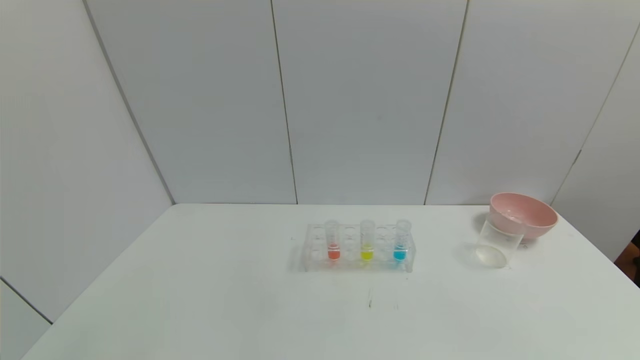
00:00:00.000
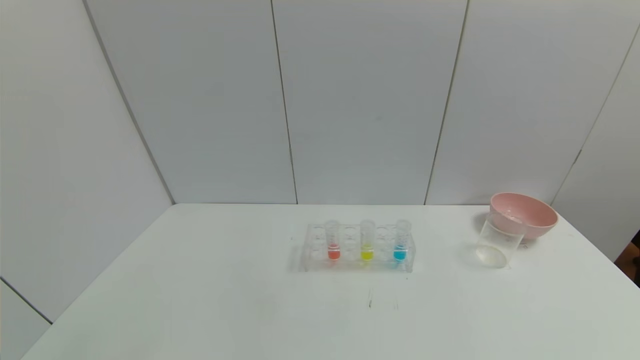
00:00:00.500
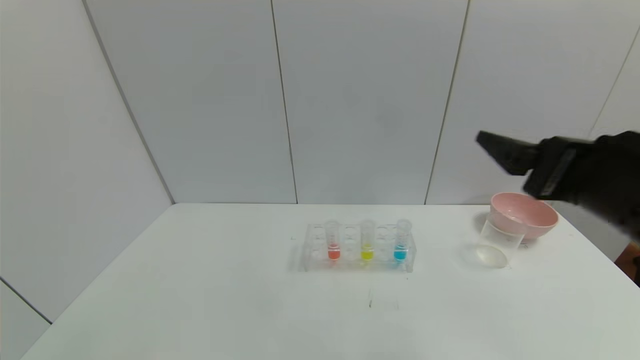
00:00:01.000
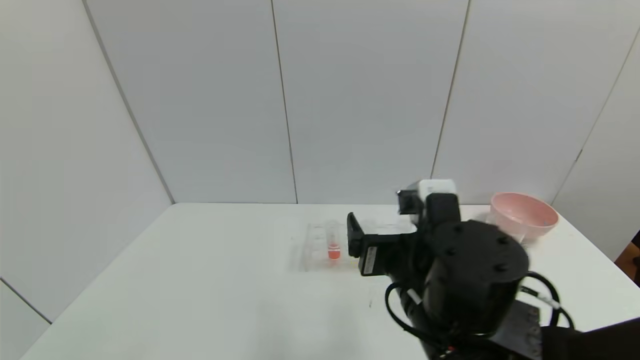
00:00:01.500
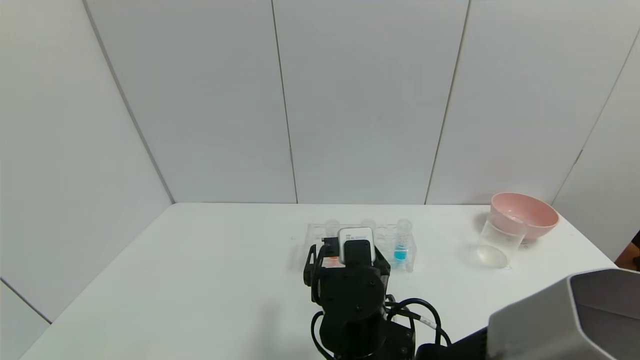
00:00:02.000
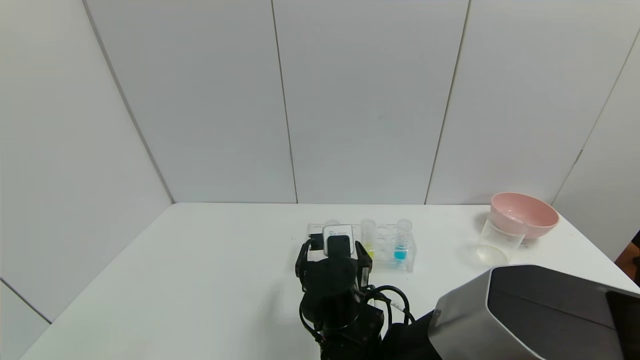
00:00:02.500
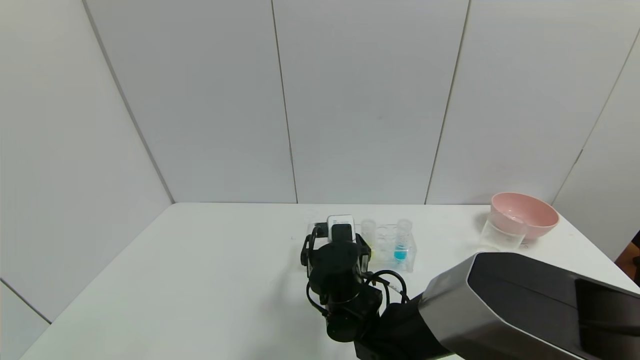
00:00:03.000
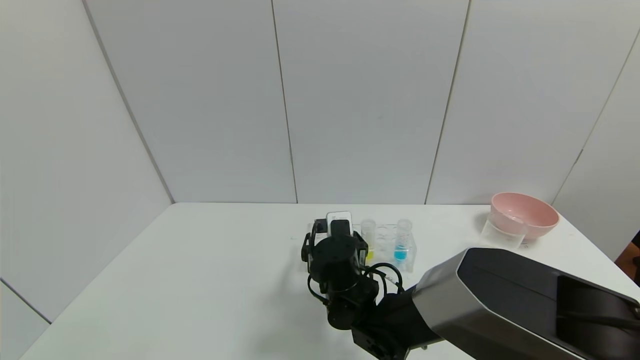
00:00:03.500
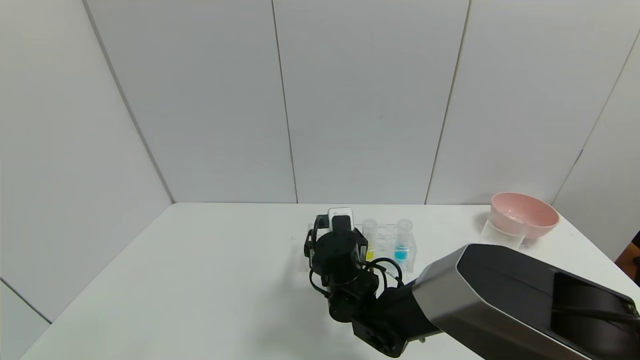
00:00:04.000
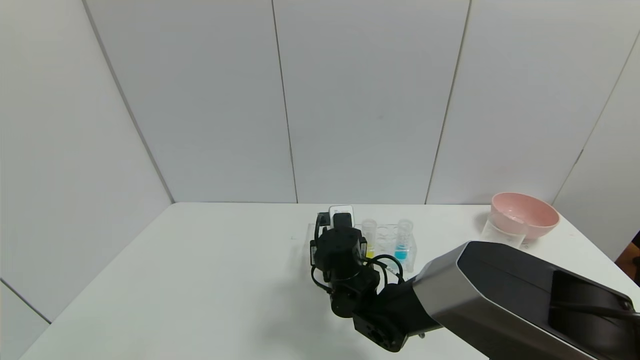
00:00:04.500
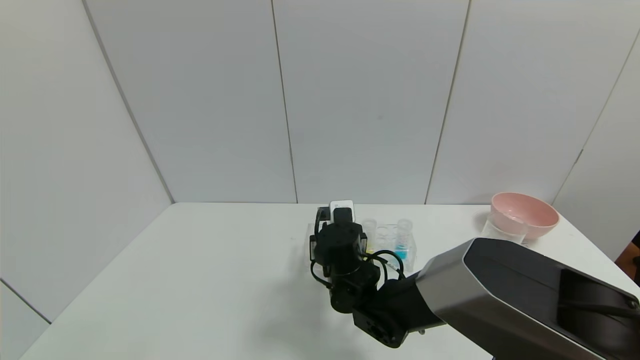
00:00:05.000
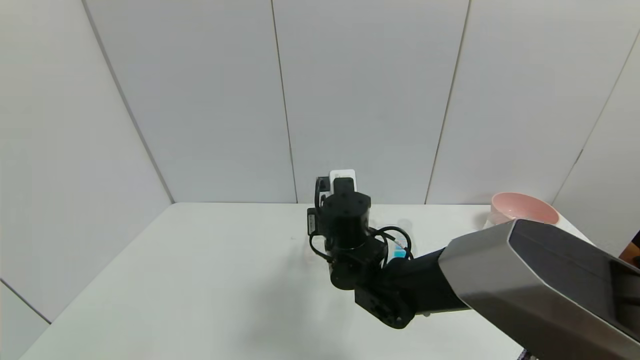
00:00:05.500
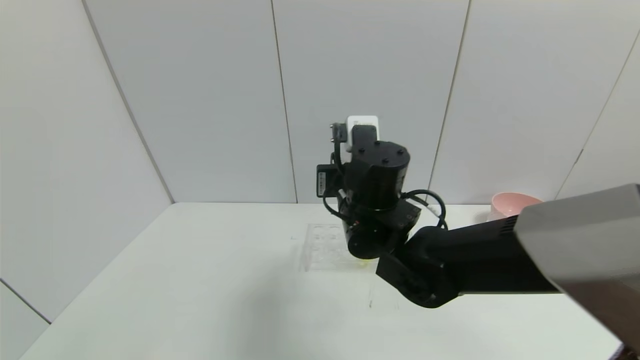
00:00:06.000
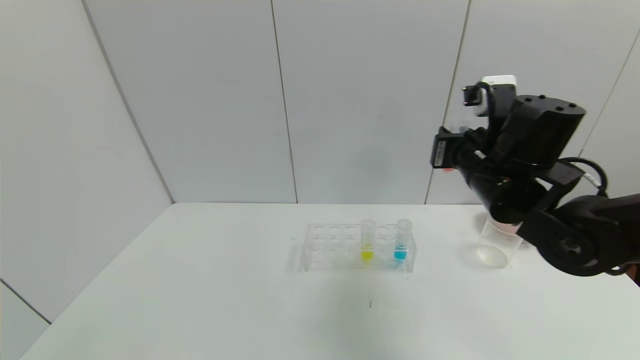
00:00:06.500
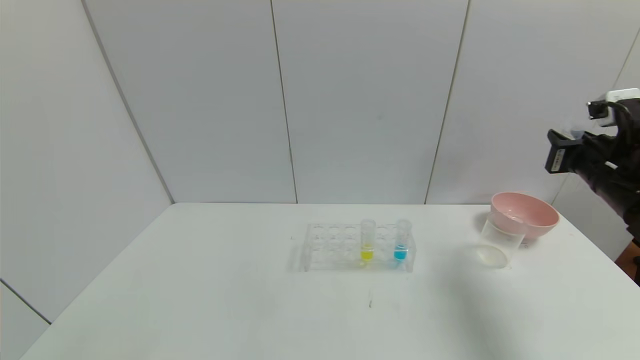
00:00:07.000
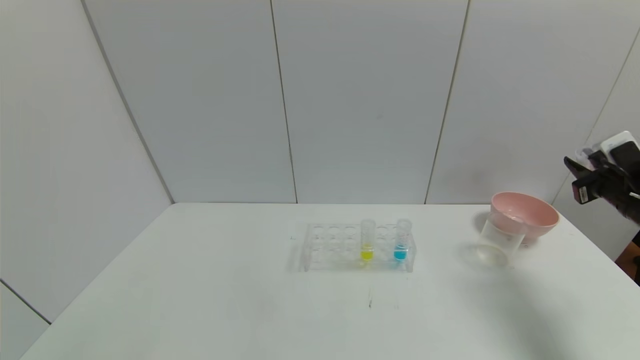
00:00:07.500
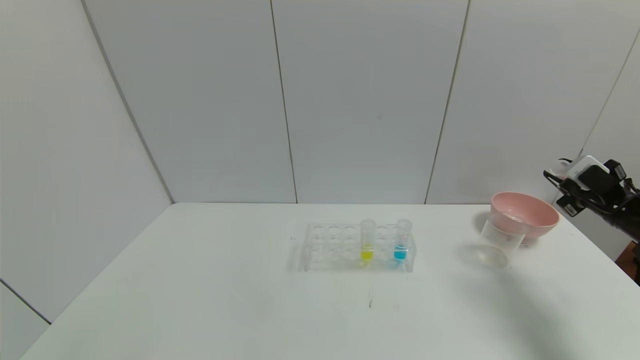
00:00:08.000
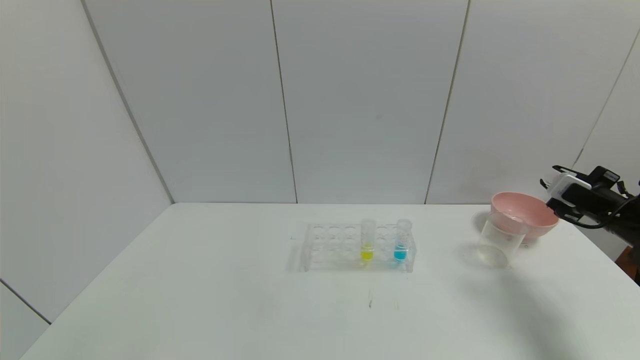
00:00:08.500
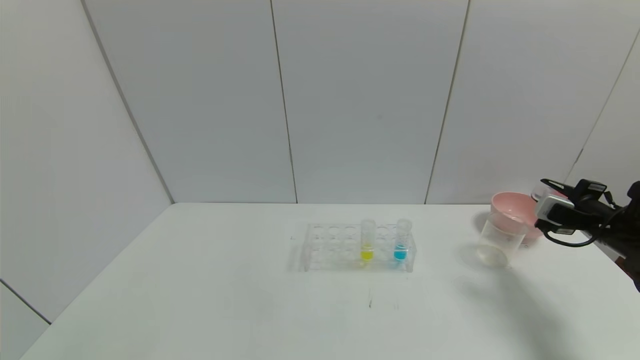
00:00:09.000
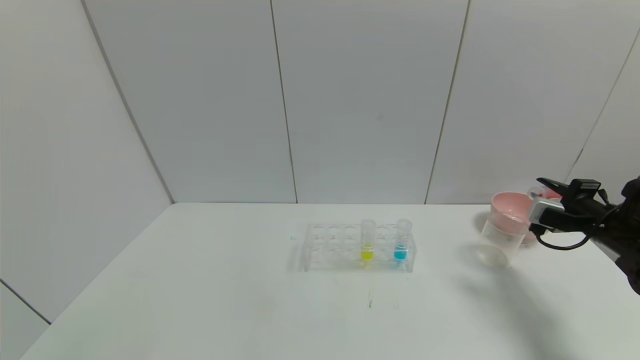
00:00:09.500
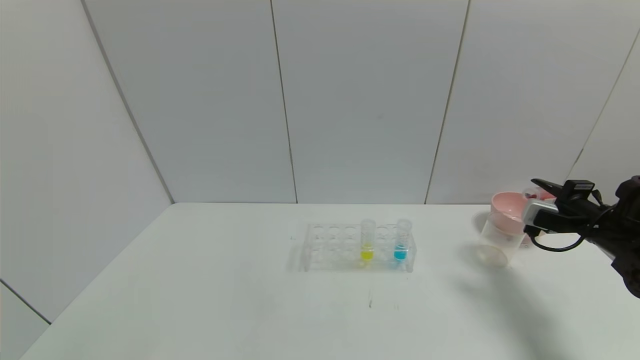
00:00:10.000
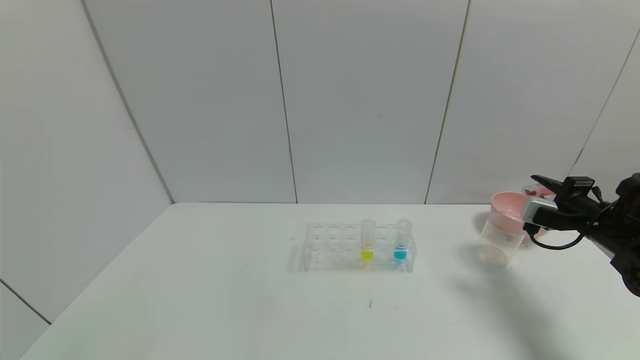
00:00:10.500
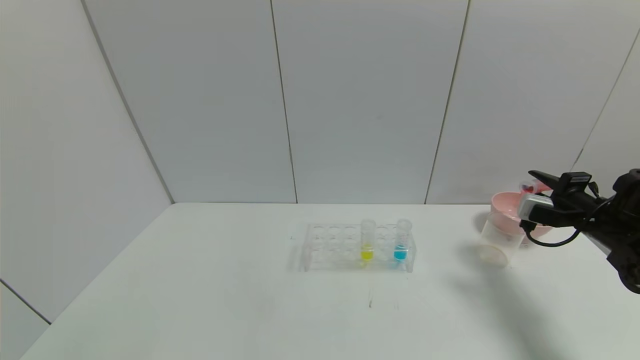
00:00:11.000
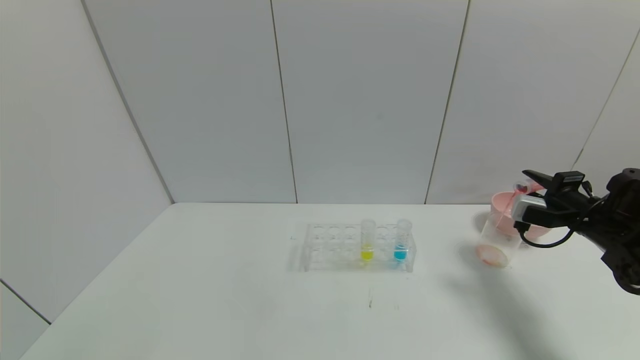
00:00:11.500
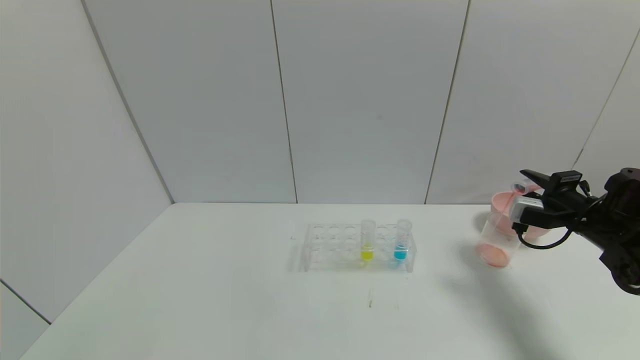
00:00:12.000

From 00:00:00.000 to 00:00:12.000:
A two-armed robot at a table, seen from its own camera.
Task of the whole recording: pick up the test tube with yellow pigment and the test tube with red pigment by grippers and pour them into the beaker.
Step, from 00:00:00.000 to 00:00:04.500: Grasp the red reagent with the right gripper.
From 00:00:00.000 to 00:00:02.000: The right gripper travels to the left and forward by about 40 cm.
From 00:00:02.000 to 00:00:04.000: The right gripper moves forward, roughly 10 cm.
From 00:00:04.000 to 00:00:06.000: The right gripper goes about 15 cm upward, and closes its fingers.
From 00:00:06.000 to 00:00:08.000: The right gripper is displaced to the right by some 40 cm.
From 00:00:10.000 to 00:00:12.000: The grippers make only small movements.

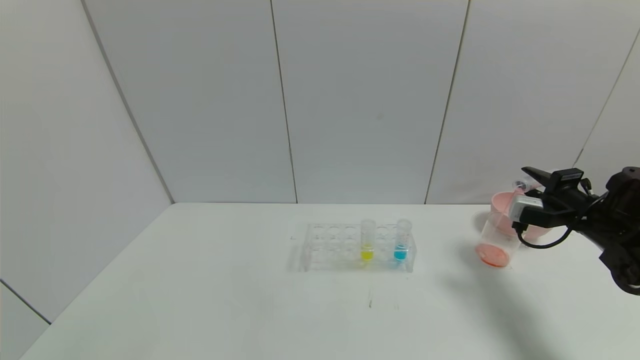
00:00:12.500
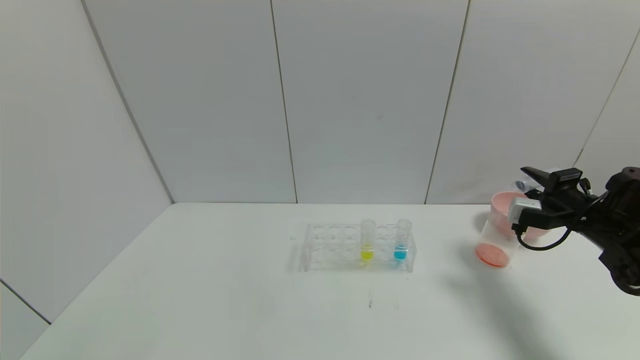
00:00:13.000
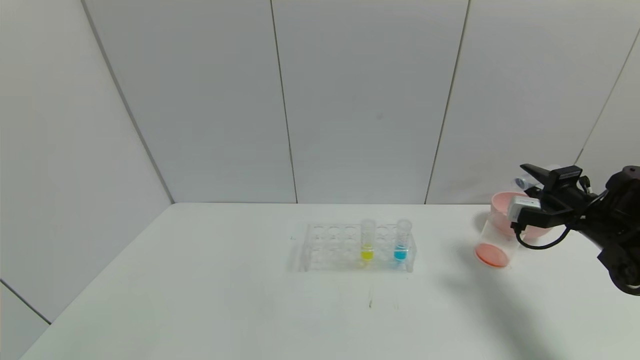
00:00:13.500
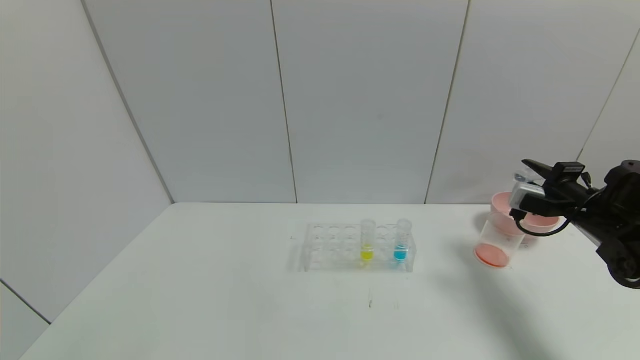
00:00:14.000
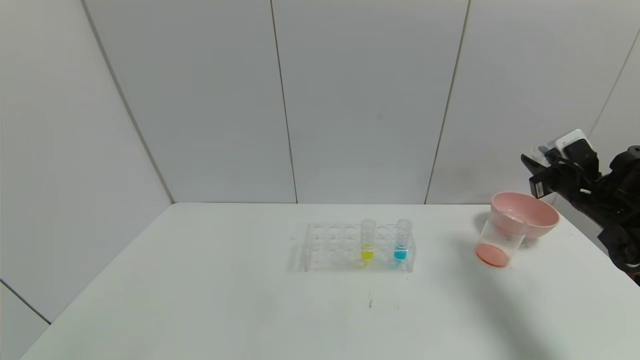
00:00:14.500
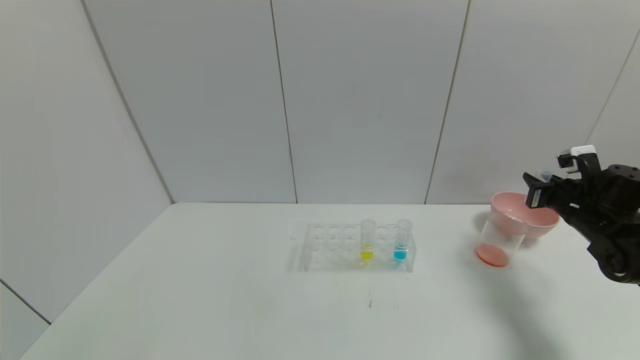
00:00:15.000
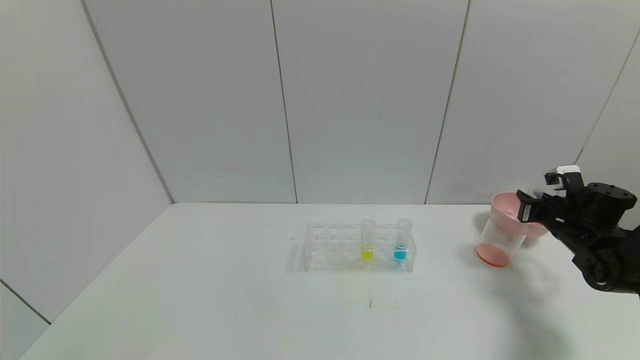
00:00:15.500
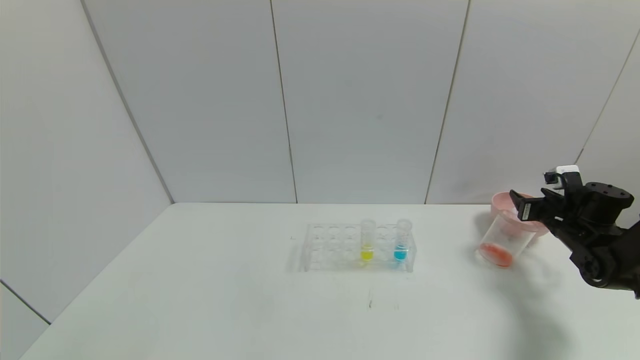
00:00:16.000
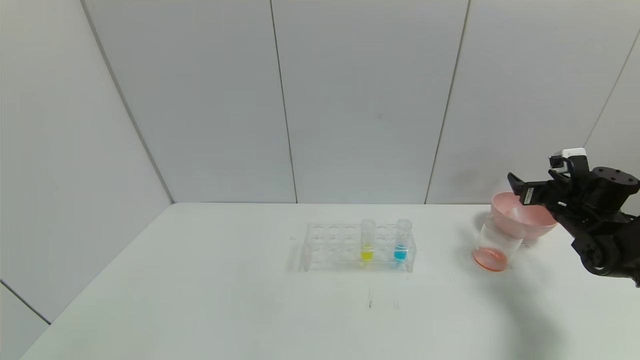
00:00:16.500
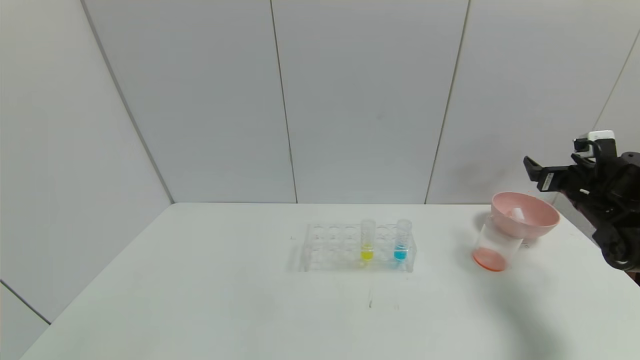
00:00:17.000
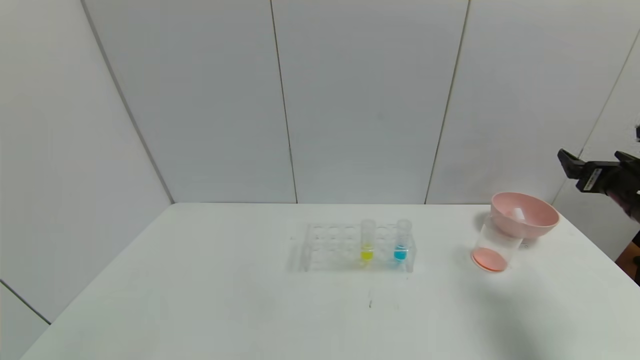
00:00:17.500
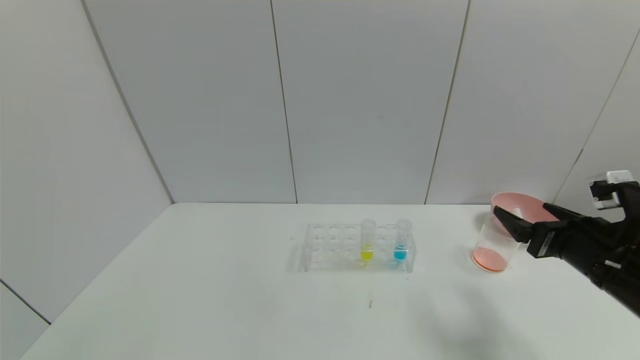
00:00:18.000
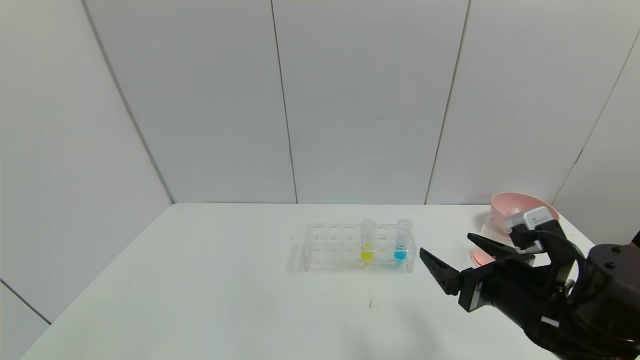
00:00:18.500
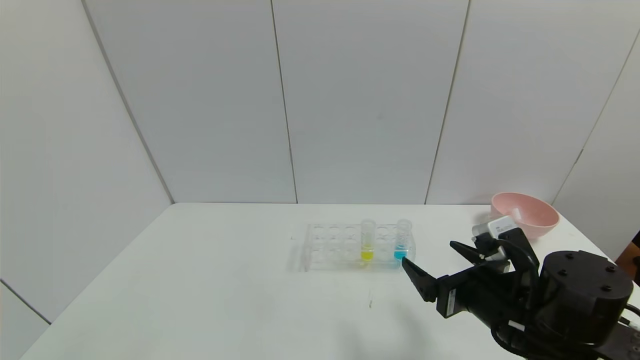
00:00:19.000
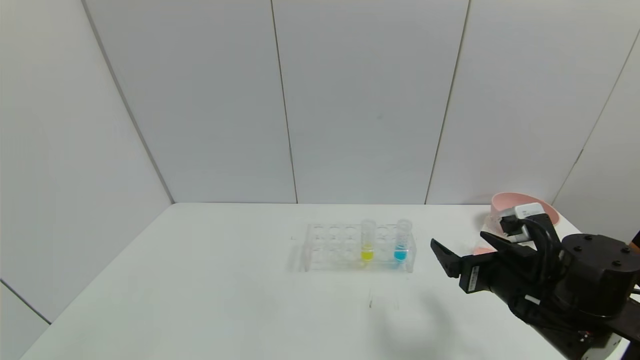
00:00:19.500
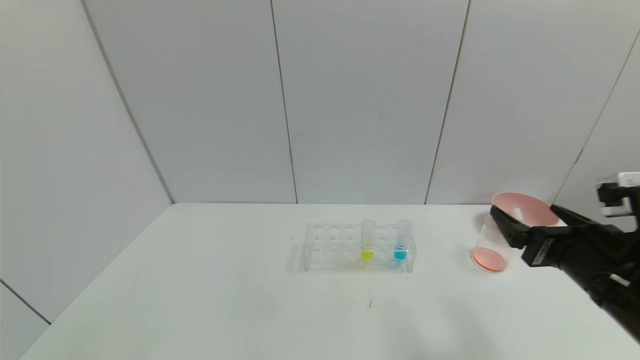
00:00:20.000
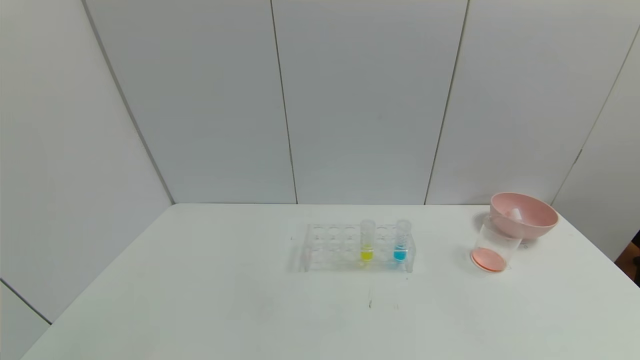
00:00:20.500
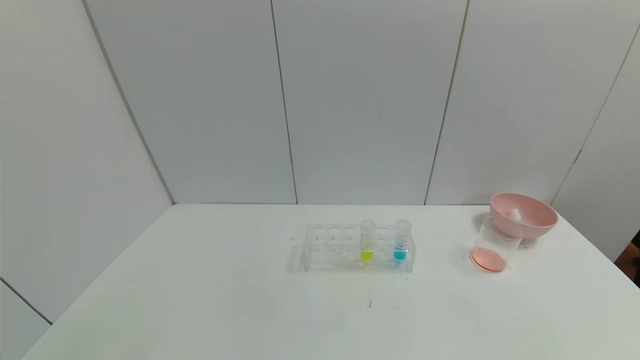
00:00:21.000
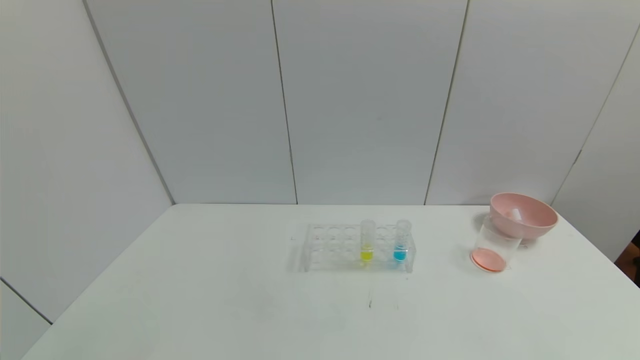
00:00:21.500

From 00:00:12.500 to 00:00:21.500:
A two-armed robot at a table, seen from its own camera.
Task of the whole recording: pick up the test tube with yellow pigment and the test tube with red pigment by grippers and pour them into the beaker.
Step, from 00:00:13.500 to 00:00:15.500: Place the test tube into the bowl with the right gripper.
From 00:00:14.500 to 00:00:17.000: The right gripper goes downward and returns, roughly 10 cm each way, and opens.
From 00:00:17.000 to 00:00:19.500: The right gripper goes about 25 cm to the left and backward.
From 00:00:19.500 to 00:00:21.500: The right gripper heads backward and to the right, covering approximately 30 cm.
